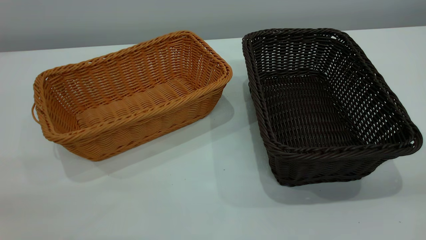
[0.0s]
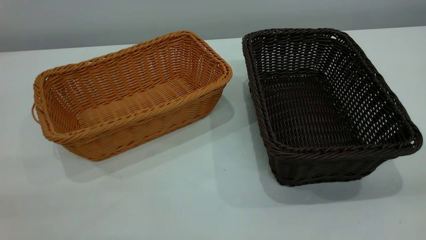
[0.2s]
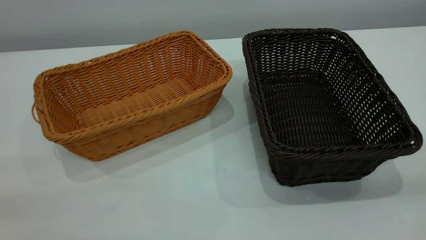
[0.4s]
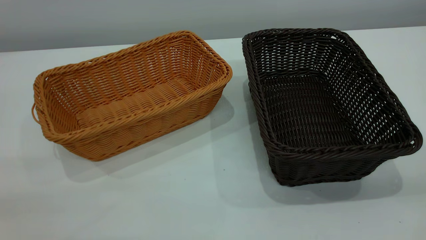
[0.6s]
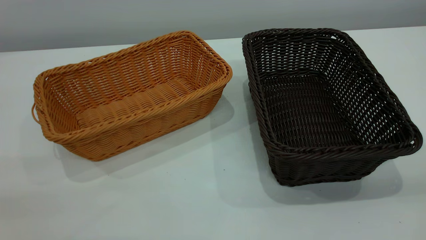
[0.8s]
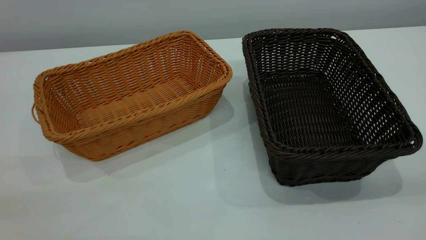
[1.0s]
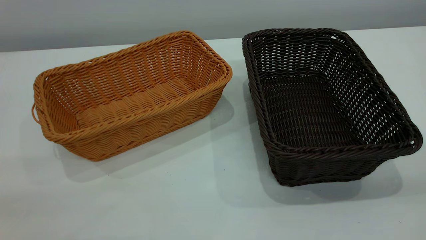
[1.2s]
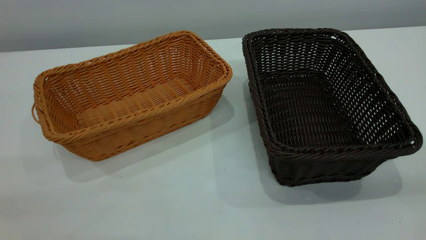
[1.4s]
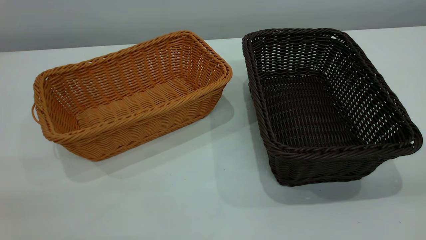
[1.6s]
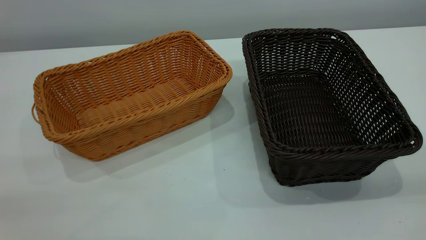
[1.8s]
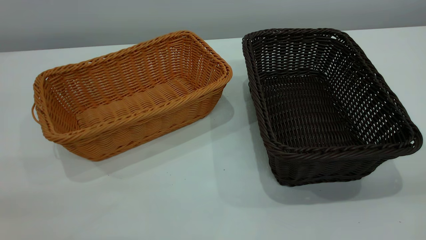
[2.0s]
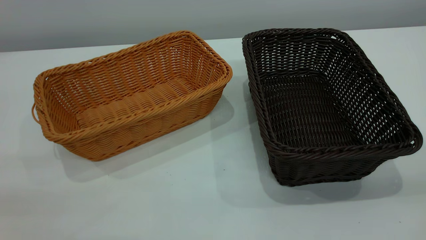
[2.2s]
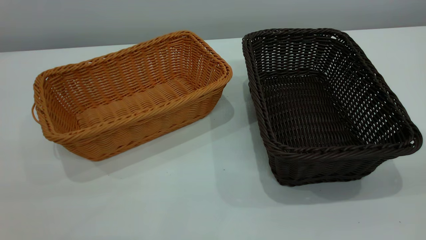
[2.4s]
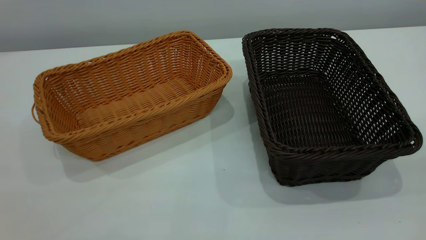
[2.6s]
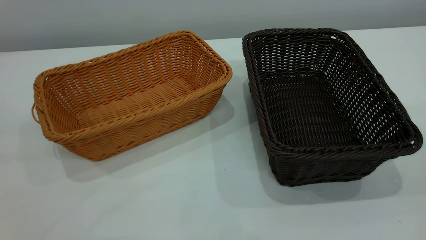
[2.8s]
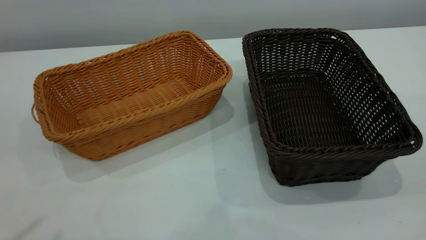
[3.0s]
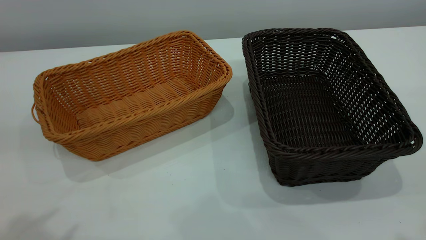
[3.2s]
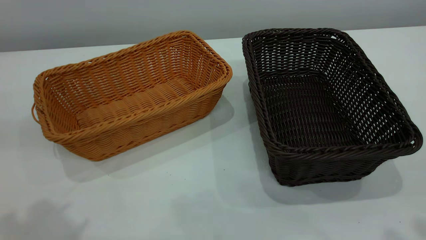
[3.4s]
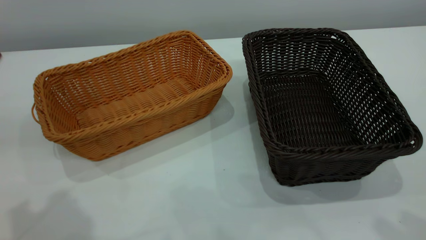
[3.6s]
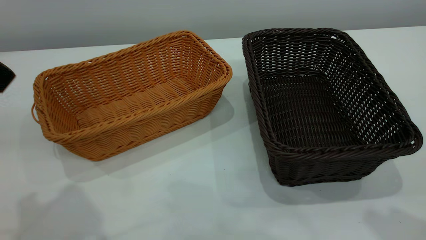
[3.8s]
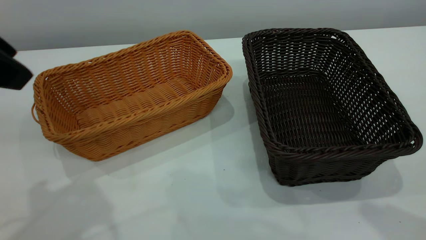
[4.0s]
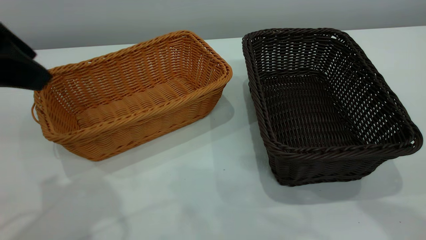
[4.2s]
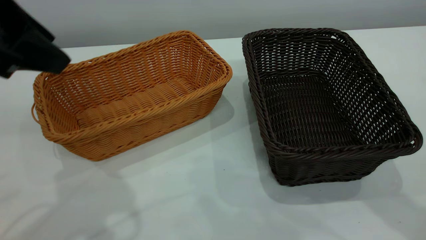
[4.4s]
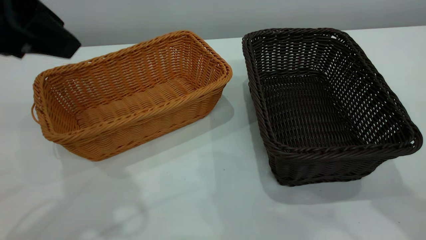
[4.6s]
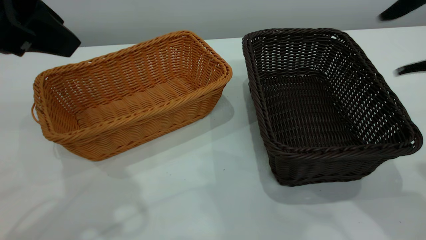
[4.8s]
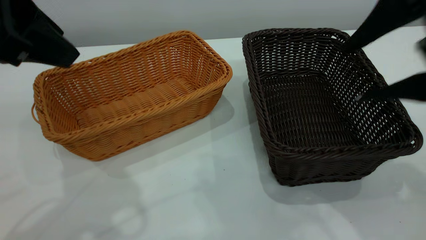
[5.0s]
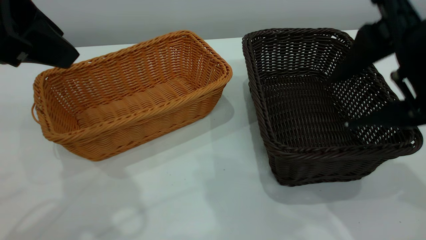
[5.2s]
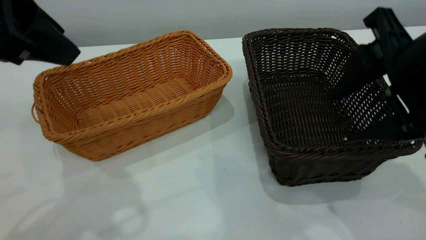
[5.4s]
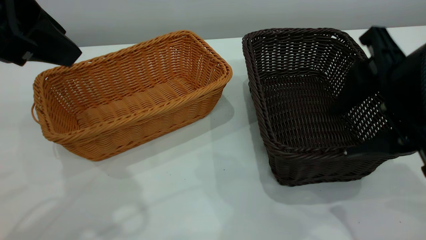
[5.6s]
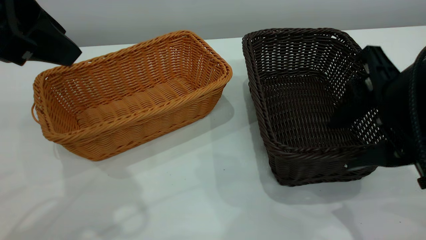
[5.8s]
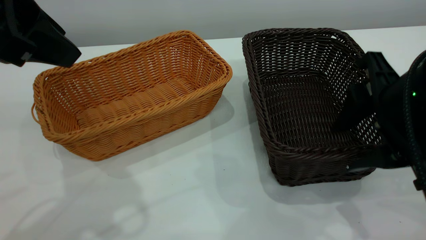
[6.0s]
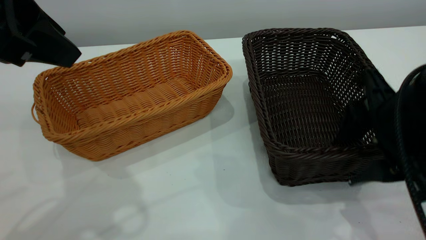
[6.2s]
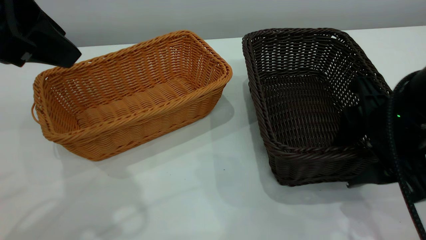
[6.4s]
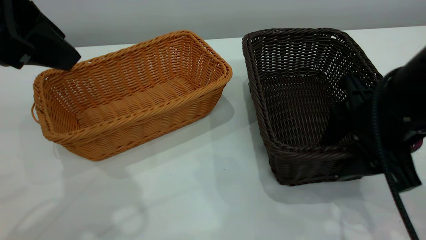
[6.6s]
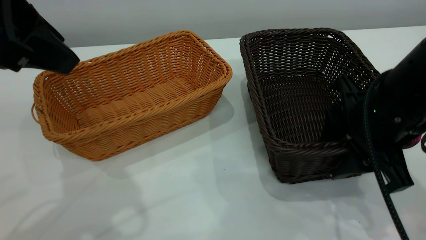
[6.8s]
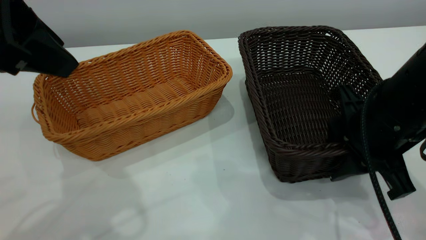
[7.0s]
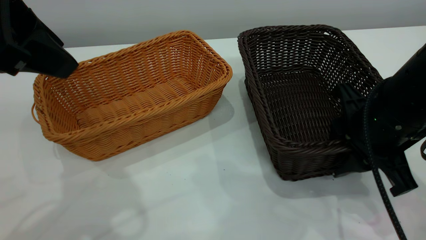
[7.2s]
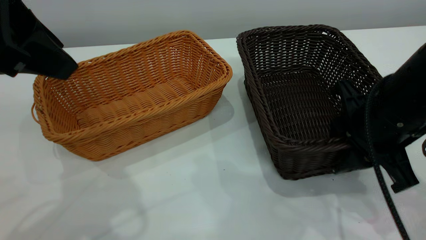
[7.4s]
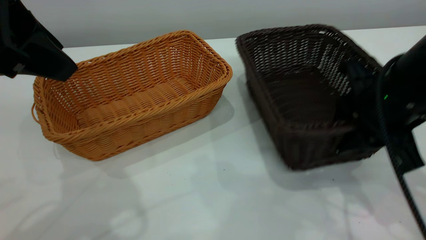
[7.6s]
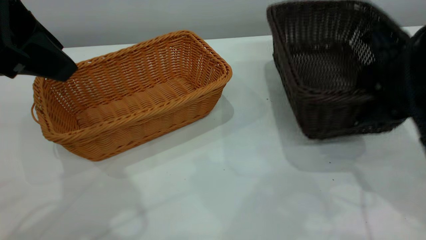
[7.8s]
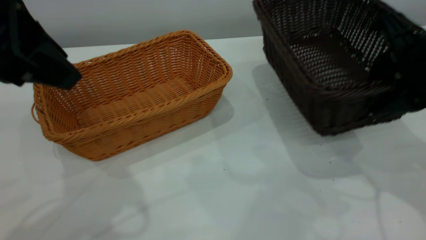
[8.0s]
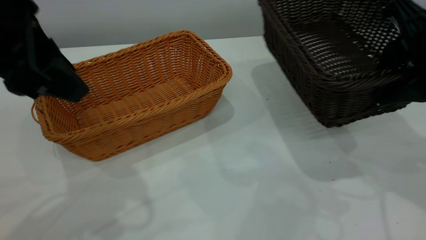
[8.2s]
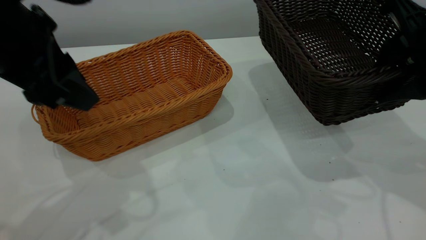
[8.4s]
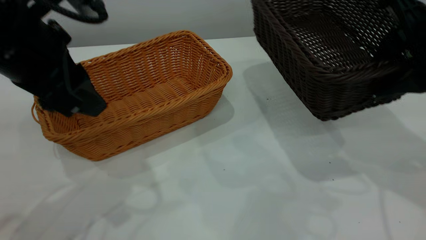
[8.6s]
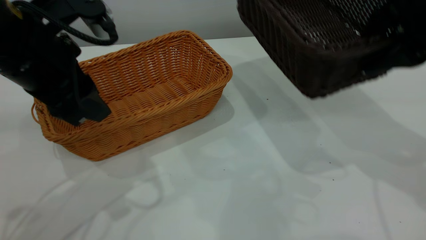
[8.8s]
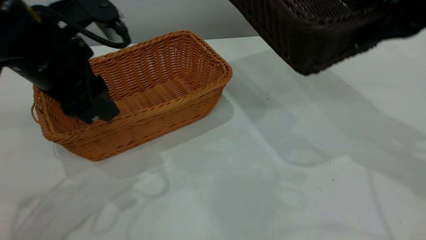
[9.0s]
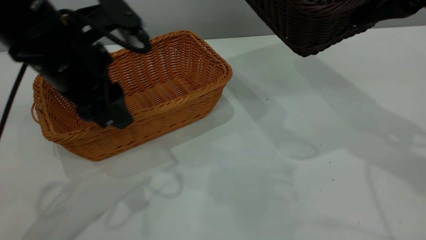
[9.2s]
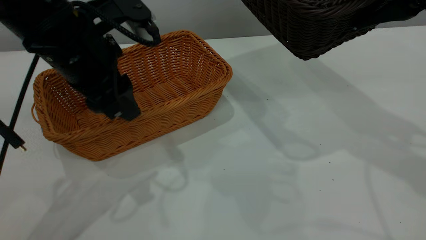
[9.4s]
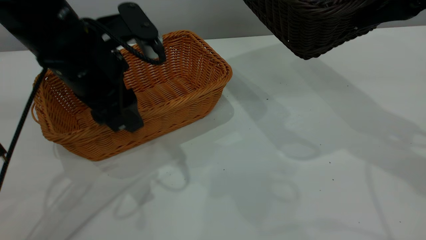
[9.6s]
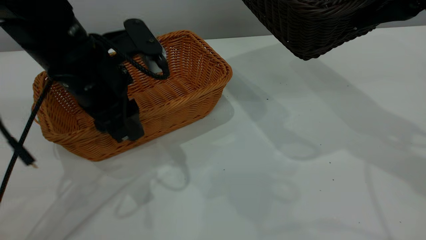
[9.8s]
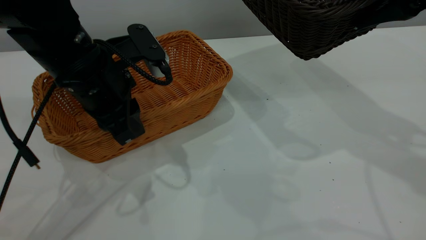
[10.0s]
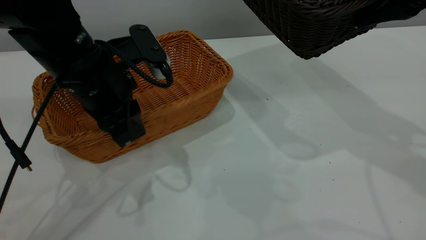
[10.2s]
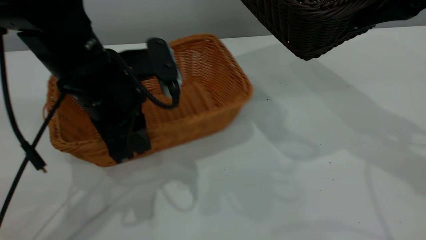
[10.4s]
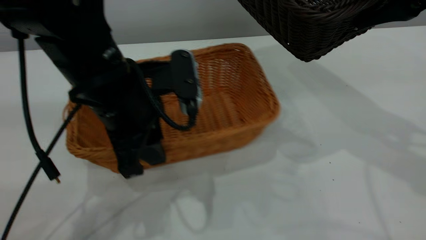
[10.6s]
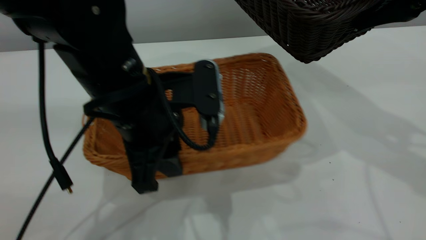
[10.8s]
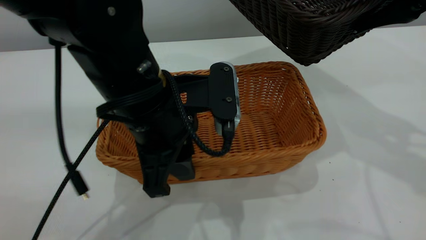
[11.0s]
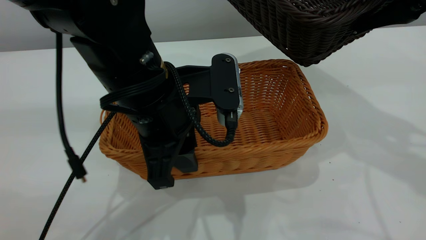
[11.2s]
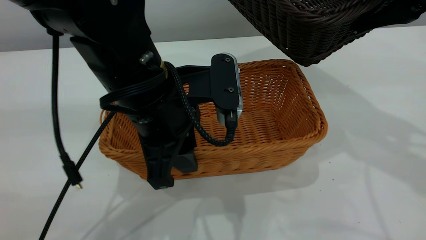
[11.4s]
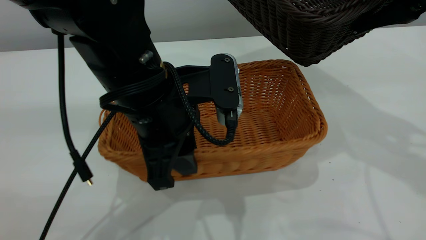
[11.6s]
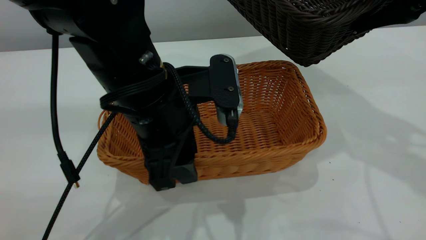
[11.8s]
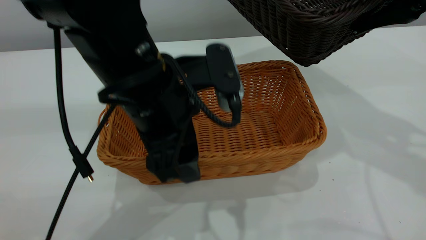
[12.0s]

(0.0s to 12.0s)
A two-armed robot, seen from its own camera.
Task of the whole recording: the left gripper grasp the brown basket and place it in the center of the table, the right gripper grasp the black basket and place it inside the brown one.
Step, 0.0s - 8.0s: Pick up the light basket with the right gripper.
0.0s - 1.6s: Both grippers stay about where they are.
3.0s - 4.4s: The left gripper moves forward, downward and to the right, about 15 cm.
4.4s - 6.0s: The right gripper shifts about 15 cm downward and to the left.
6.0s - 7.6s: The right gripper closes up.
7.6s - 9.0s: The right gripper moves upward, about 10 cm, while the left gripper travels downward and forward by about 10 cm.
9.0s - 10.4s: The left gripper changes place by some 5 cm, and closes up.
10.4s - 12.0s: The left gripper shifts about 5 cm to the right, and opens.

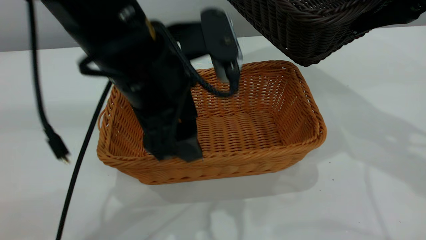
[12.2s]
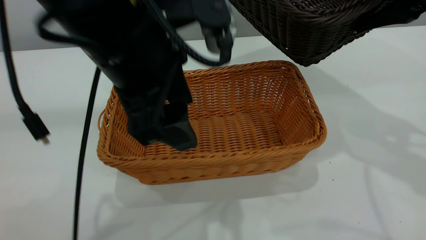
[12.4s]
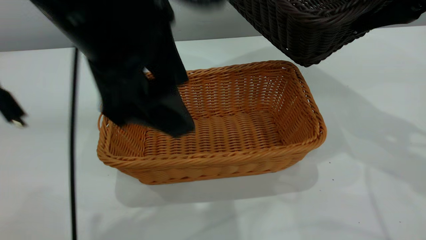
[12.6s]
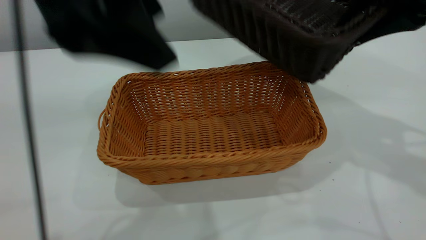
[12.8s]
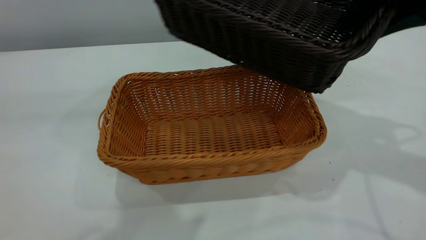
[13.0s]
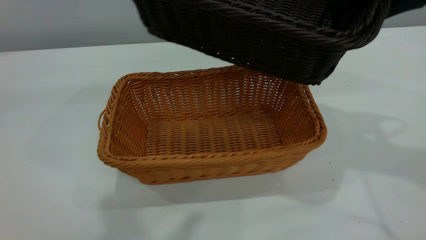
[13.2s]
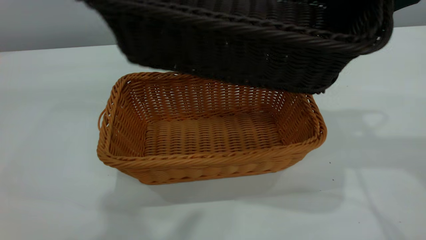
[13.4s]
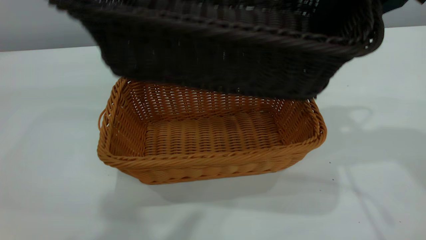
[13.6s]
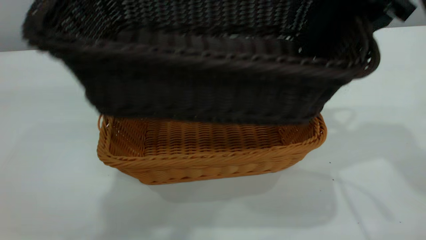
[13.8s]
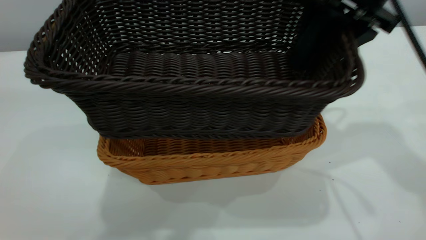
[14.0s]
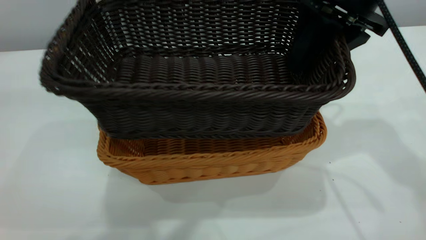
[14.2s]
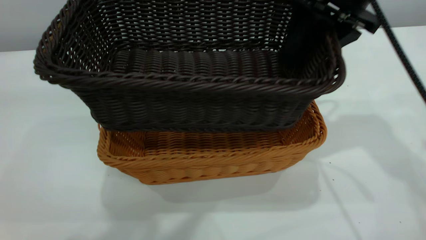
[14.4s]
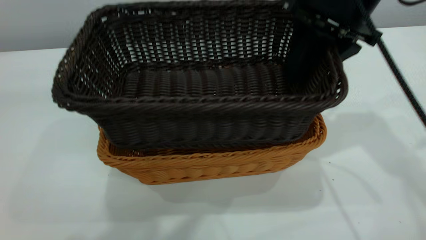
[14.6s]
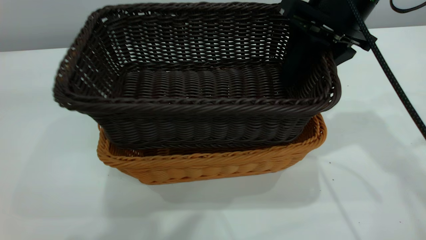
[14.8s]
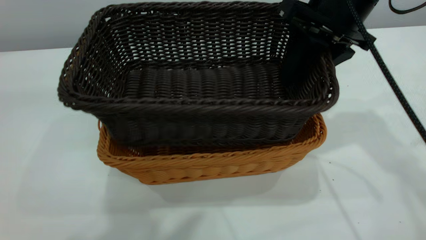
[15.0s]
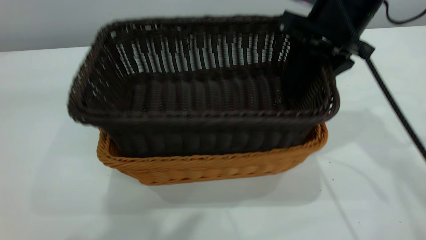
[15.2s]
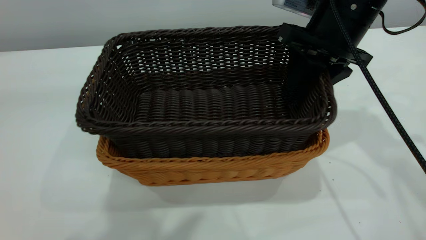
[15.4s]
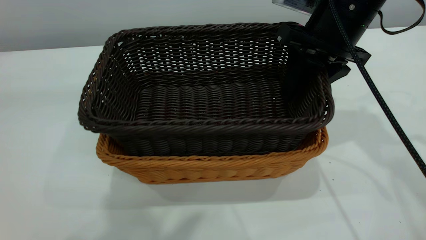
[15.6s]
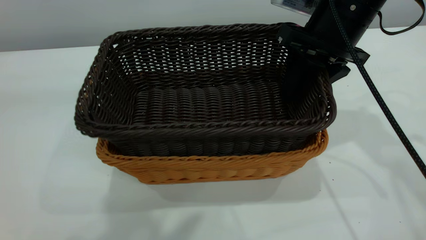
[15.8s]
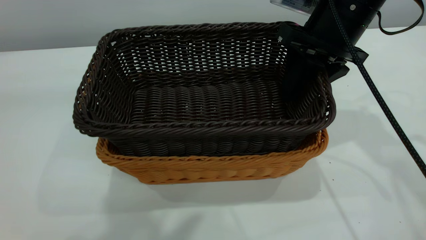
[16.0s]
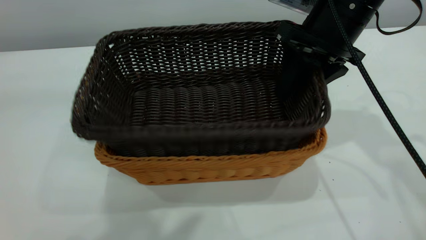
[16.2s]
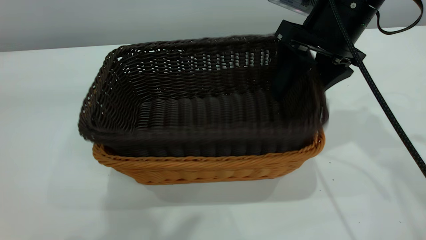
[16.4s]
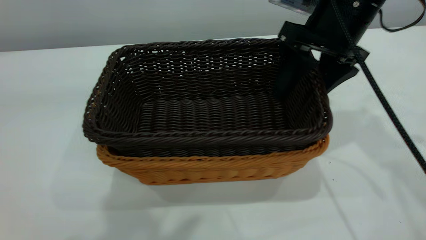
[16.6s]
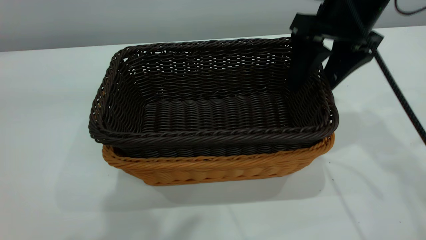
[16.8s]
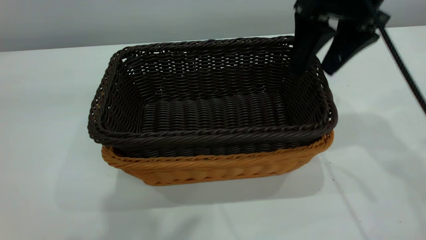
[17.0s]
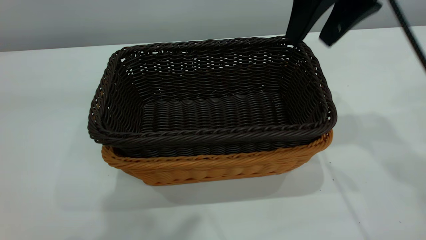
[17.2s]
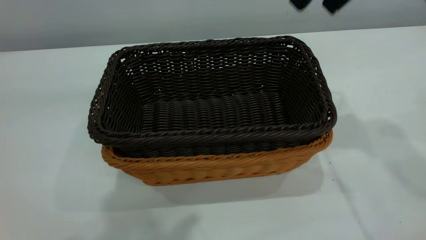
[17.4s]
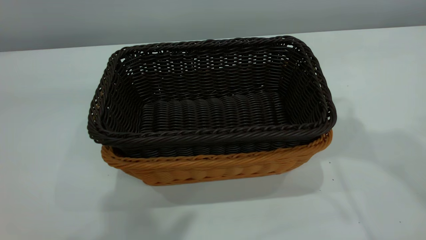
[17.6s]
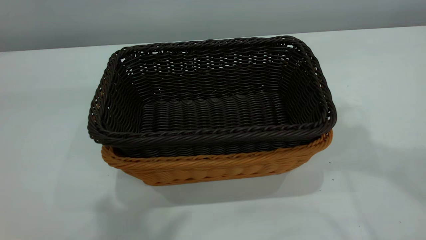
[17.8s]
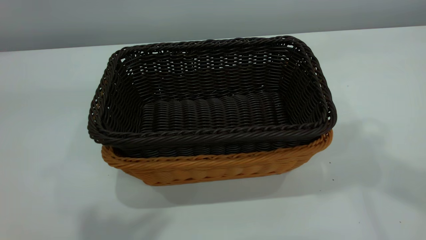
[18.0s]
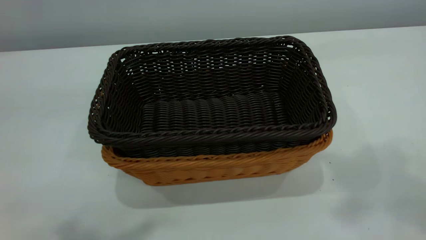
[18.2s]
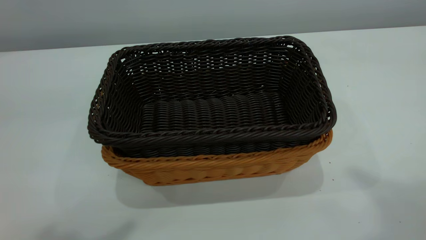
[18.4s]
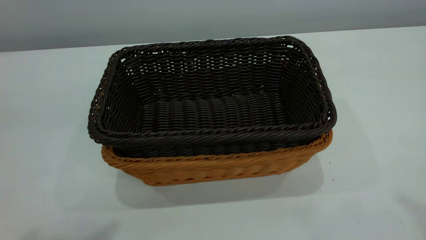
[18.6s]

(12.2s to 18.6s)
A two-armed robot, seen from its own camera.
Task of the whole recording: the left gripper grasp the brown basket and place it in the center of the table, the right gripper grasp the black basket and place it inside the brown one.
Step, 12.6s - 17.2s: Place the dark basket on top of the light basket.
12.2s - 13.8s: The right gripper ends up approximately 5 cm from where it was; the left gripper travels upward by roughly 25 cm.
13.8s - 15.4s: The right gripper is displaced downward by roughly 10 cm.
15.4s - 17.0s: The right gripper goes approximately 5 cm upward, and opens its fingers.
17.0s - 18.6s: The right gripper heads upward and backward, covering some 40 cm, and closes. Meanwhile the left gripper heads to the left, covering approximately 5 cm, and closes.
